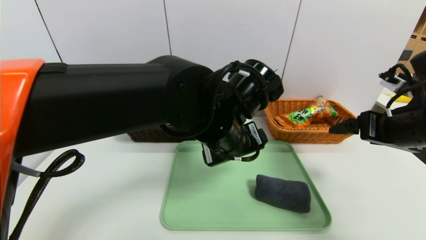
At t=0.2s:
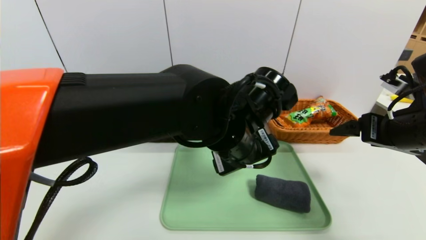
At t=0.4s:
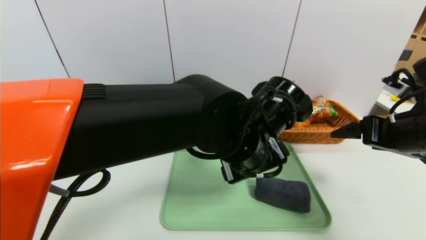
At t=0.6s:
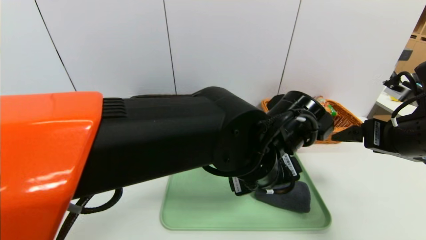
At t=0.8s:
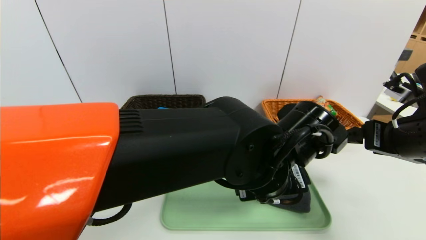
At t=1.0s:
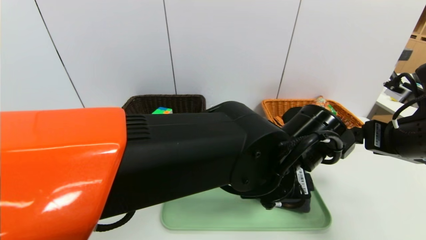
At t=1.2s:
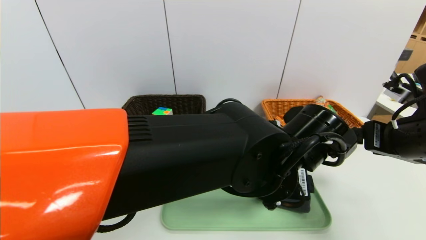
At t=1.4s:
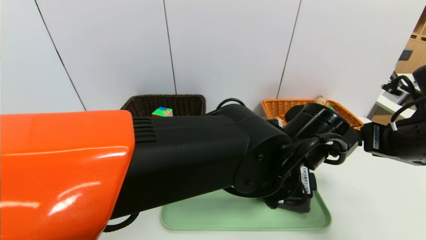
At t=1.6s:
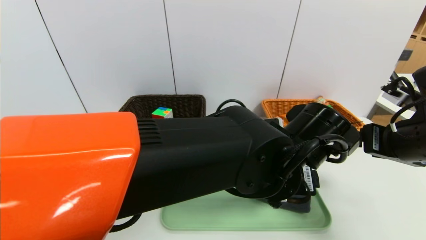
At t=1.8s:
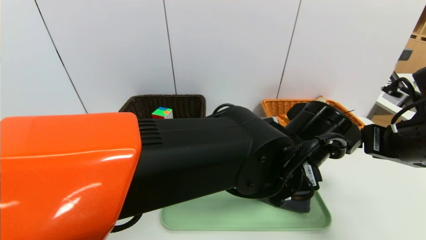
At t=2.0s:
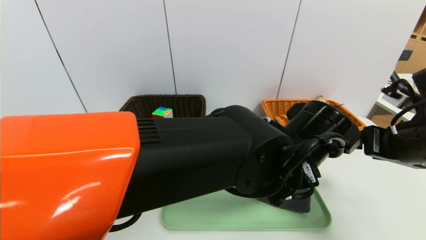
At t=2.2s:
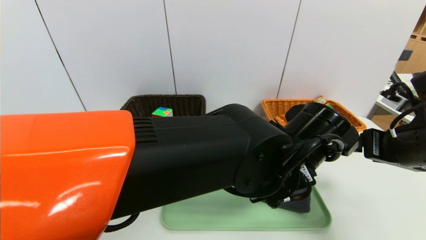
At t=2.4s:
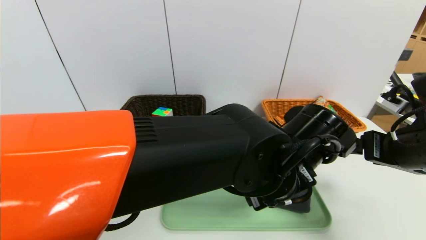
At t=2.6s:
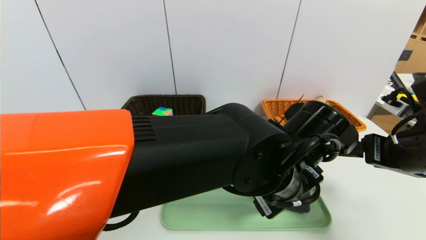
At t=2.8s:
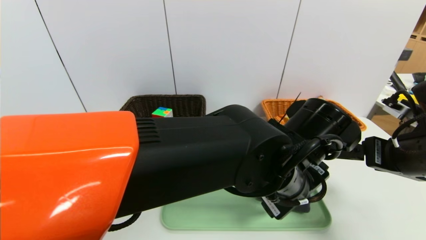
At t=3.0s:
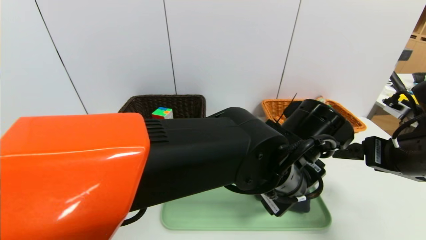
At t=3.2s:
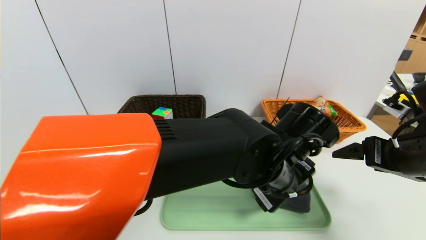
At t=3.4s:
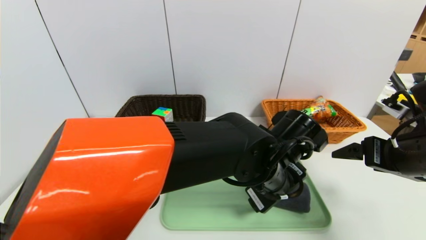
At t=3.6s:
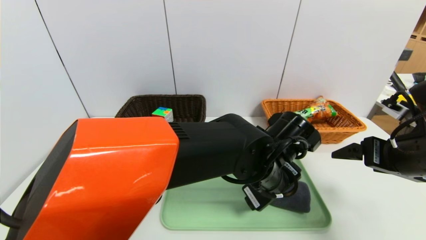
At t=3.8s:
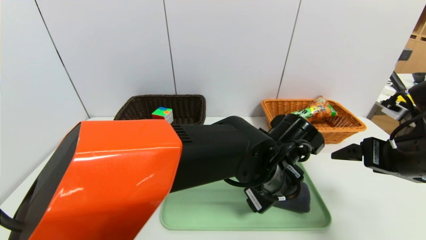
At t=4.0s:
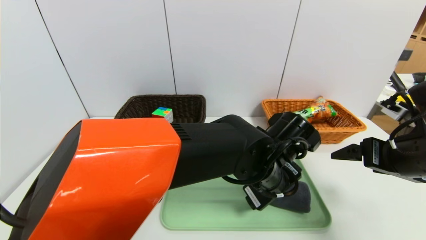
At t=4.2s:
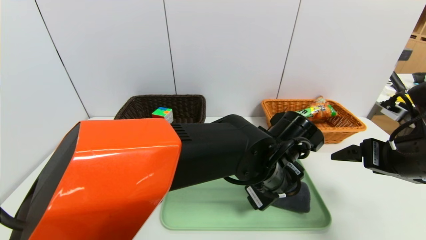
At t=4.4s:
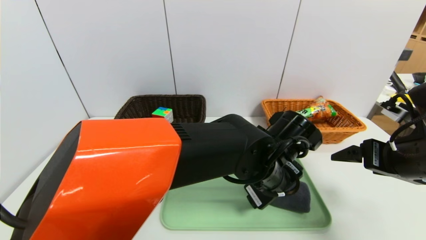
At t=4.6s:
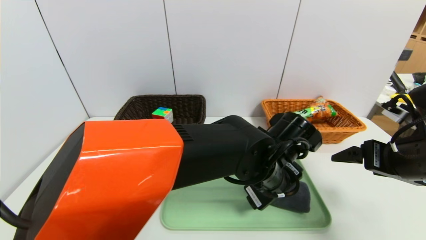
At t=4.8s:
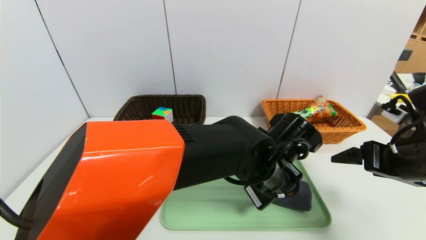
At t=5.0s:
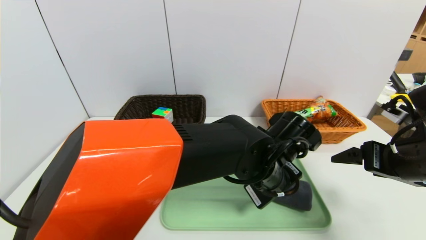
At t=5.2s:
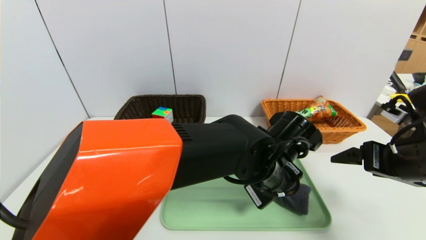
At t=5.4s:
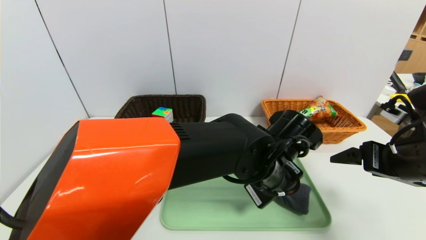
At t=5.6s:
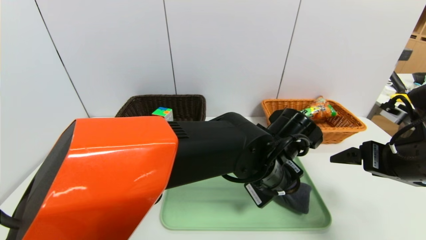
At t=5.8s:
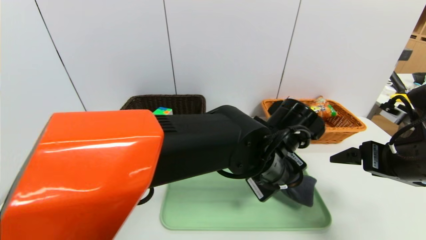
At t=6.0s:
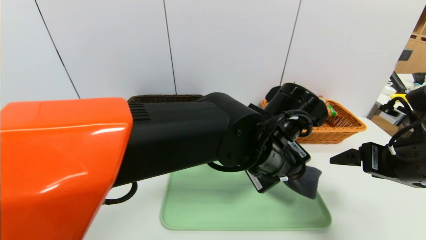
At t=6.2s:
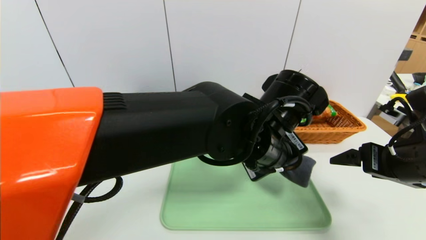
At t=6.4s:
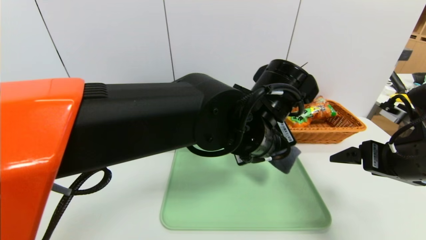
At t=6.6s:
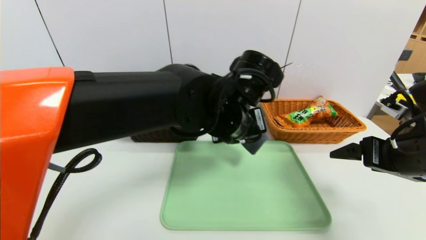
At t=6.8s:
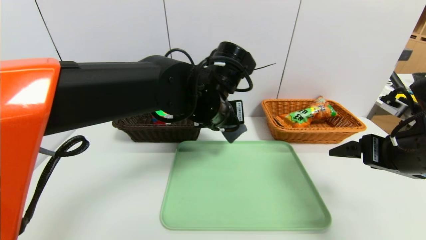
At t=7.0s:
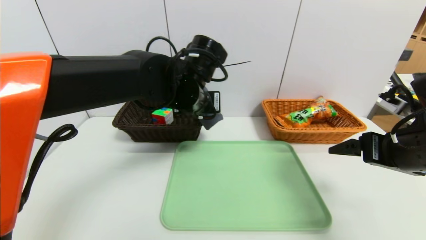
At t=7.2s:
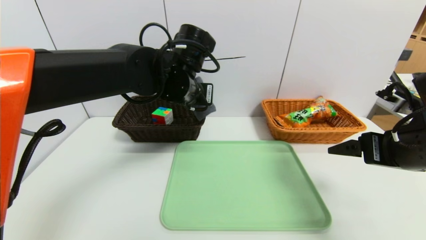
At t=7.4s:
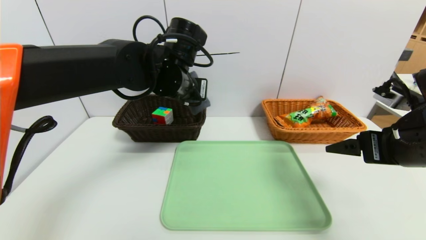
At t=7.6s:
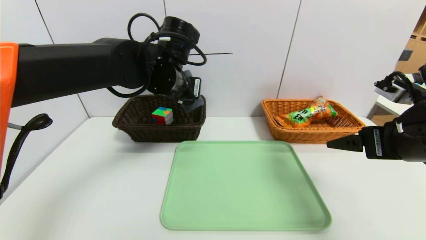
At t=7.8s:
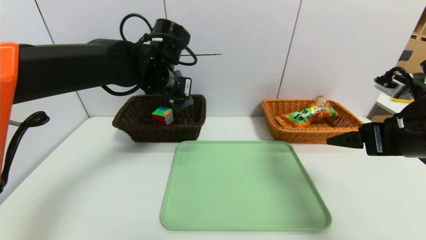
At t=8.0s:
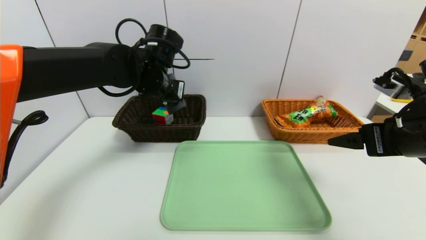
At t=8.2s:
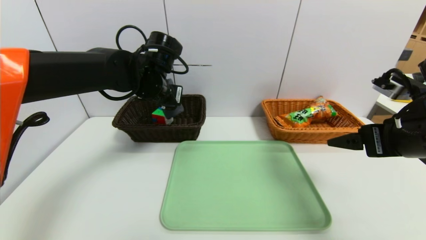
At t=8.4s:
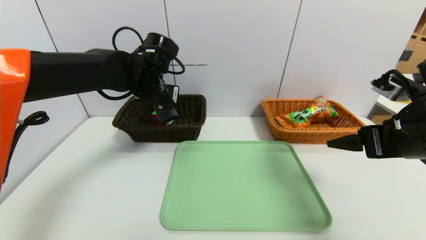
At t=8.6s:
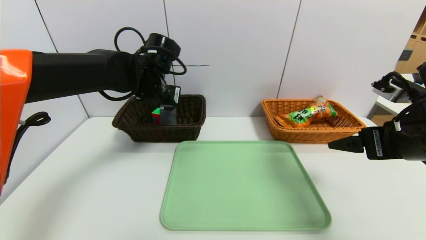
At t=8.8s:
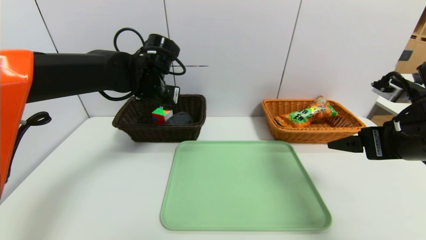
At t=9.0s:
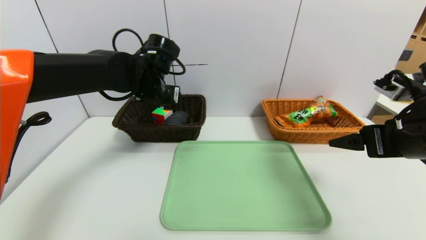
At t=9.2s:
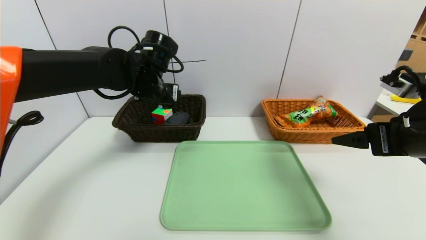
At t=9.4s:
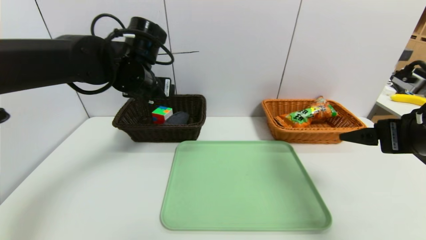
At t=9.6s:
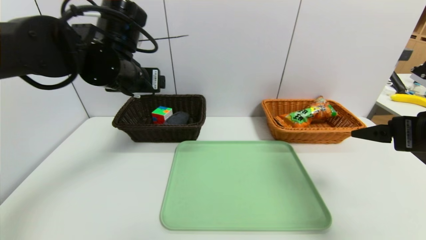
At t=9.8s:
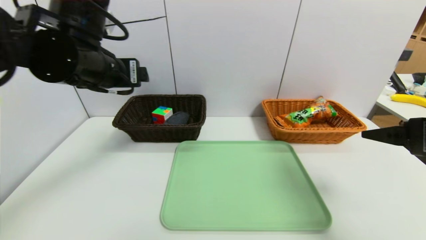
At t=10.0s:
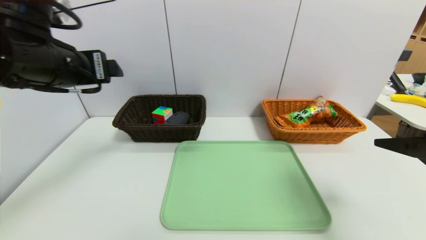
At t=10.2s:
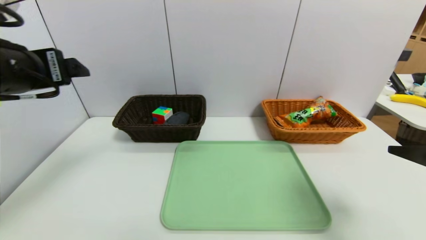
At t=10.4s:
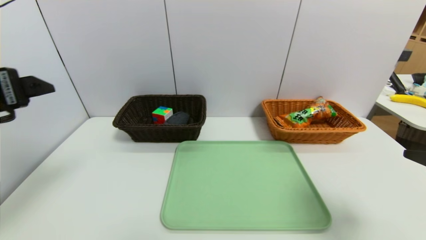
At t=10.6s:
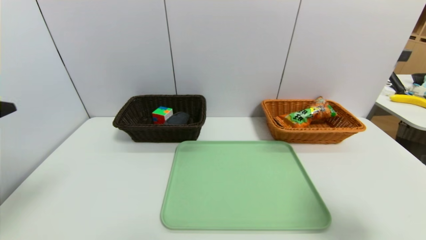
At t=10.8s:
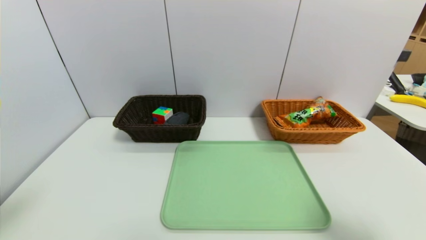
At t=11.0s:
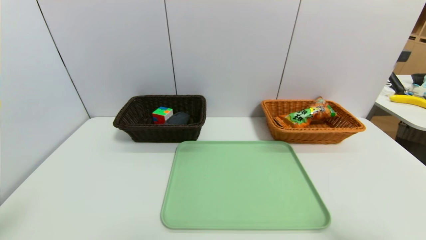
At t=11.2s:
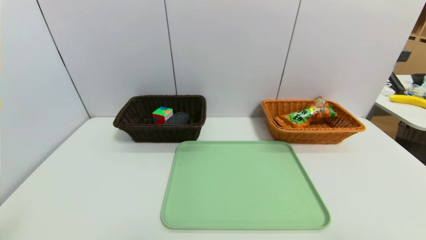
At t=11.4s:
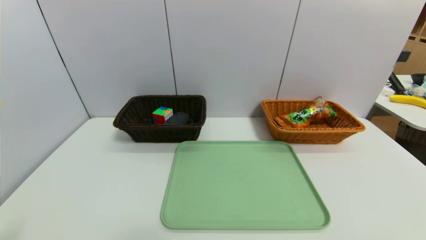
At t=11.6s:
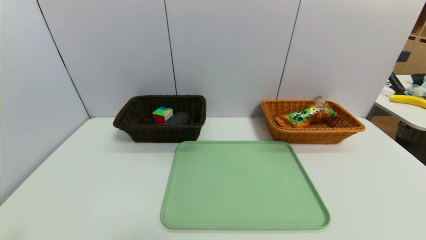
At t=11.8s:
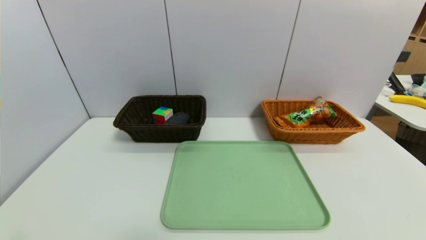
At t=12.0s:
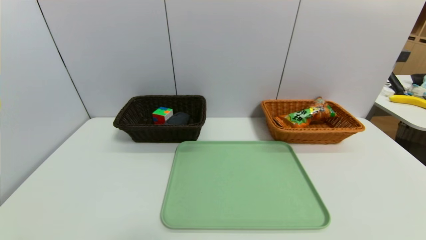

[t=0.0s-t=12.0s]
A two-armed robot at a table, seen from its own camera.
Task of the whole recording: place the food in the right basket with the right gripper, and place the non food items in the left basket with the left gripper.
Step, t=0.0s to t=9.0s: Grasp the grey towel and put it in the left basket.
t=0.0s to t=1.6s: The left gripper moves to the right, approximately 5 cm.
t=4.4s to t=6.0s: The left gripper travels upward by roughly 5 cm, and closes up.
t=6.0s to t=7.6s: The left gripper goes about 20 cm to the left and forward.
t=7.6s to t=9.0s: The left gripper changes place by approximately 5 cm, and opens up.
t=9.0s to t=10.4s: The right gripper heads backward, covering some 10 cm. The left gripper travels backward and to the left by approximately 30 cm.
t=10.4s to t=12.0s: The grippers both shift backward and downward by some 20 cm.
